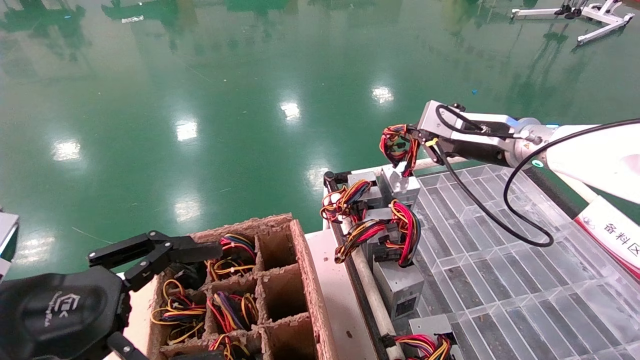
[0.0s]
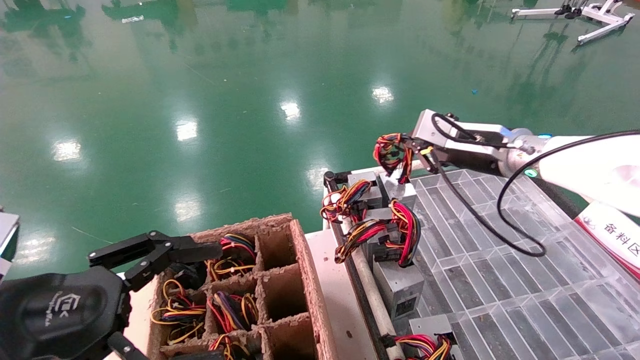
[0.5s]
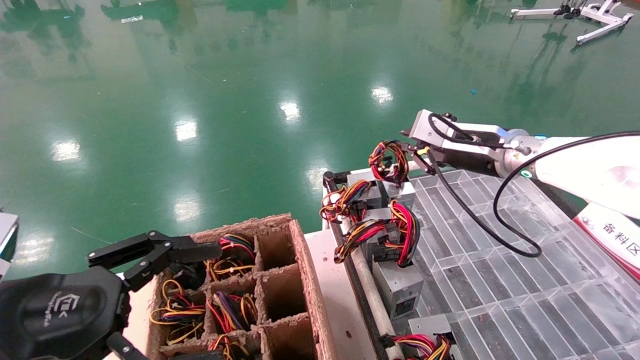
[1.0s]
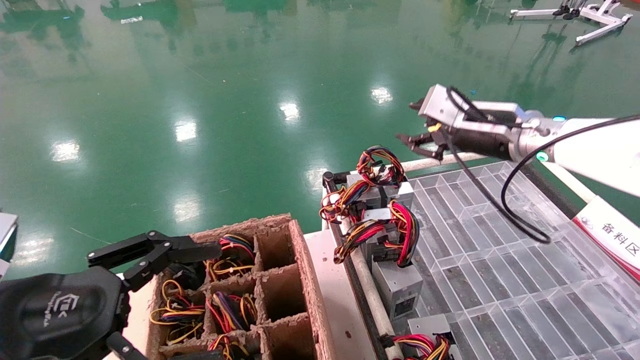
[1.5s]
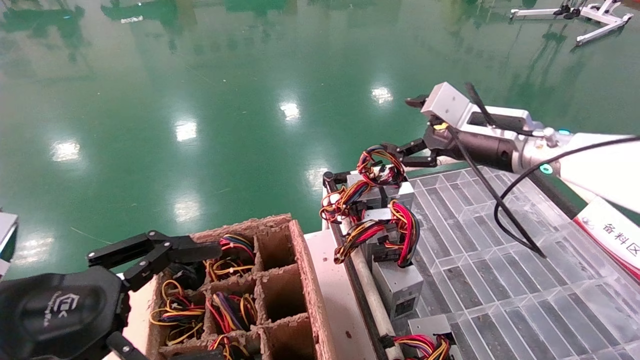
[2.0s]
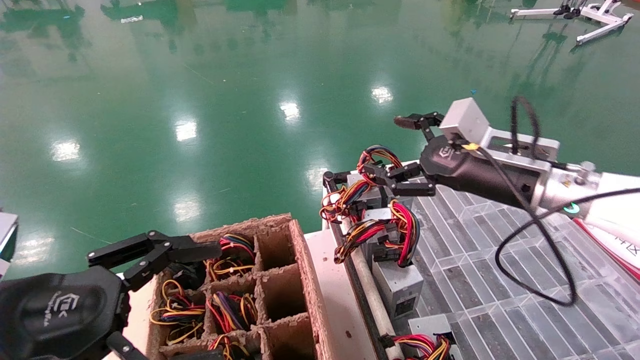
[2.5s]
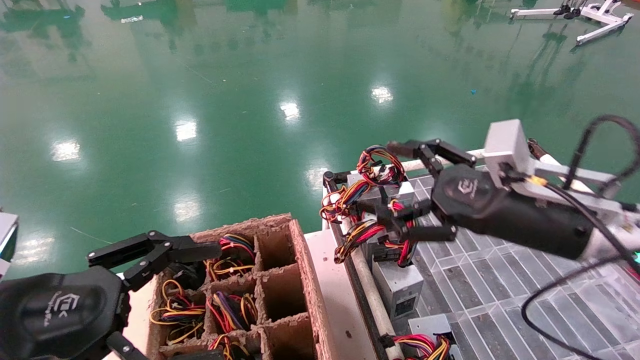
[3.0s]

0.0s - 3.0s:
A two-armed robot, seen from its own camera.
0.0s - 1.5s: The right gripper opens its fingers.
1.5s - 3.0s: The right gripper is displaced backward and downward by approximately 15 cm, and opens up.
